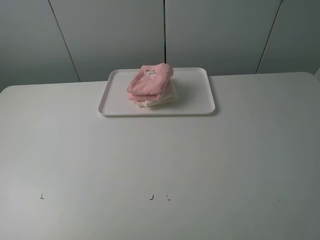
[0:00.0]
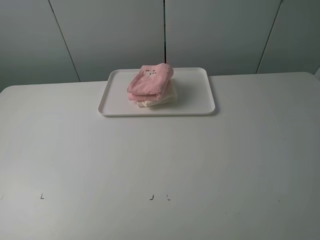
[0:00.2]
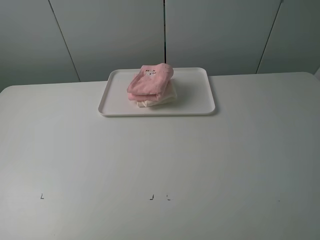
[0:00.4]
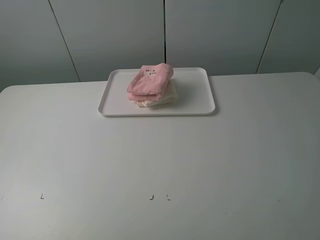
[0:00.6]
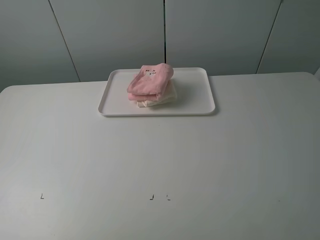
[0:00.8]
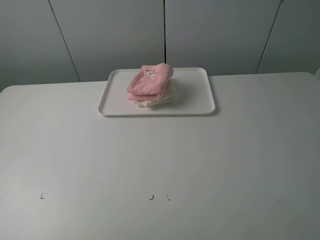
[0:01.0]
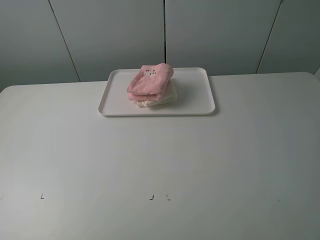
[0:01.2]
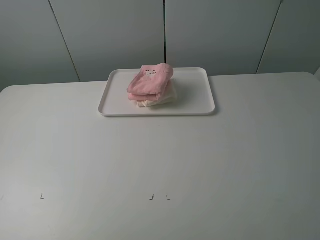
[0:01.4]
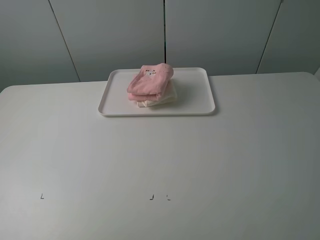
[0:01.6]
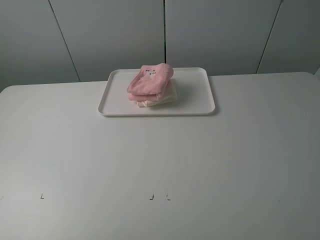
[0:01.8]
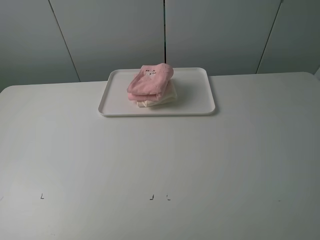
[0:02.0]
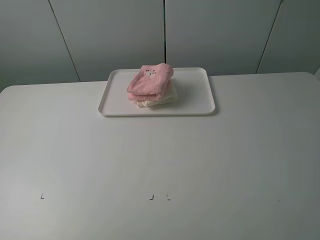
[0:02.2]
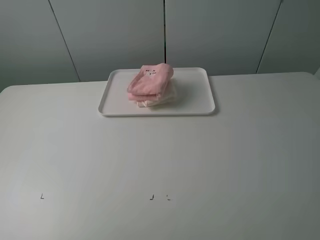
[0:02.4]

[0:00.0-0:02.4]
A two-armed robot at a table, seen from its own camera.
Task of the whole recording: fold one of the towels by two grippers and place it on the tray,then fold another towel by two grippers and place it on the folded towel.
0:01.2 to 0:02.4: Both grippers stay put.
